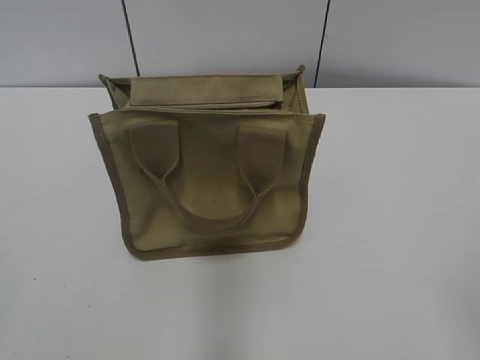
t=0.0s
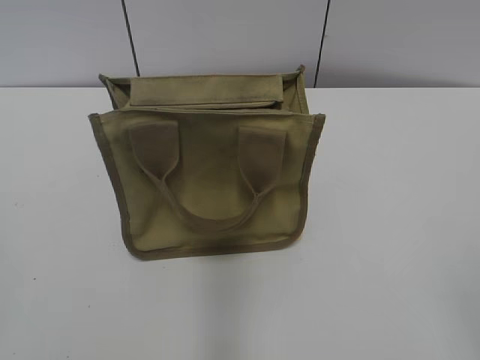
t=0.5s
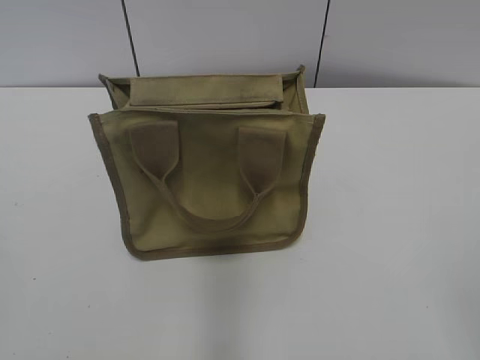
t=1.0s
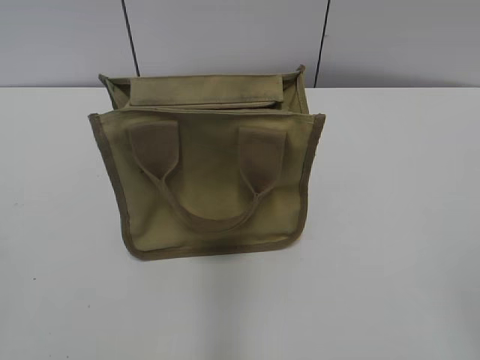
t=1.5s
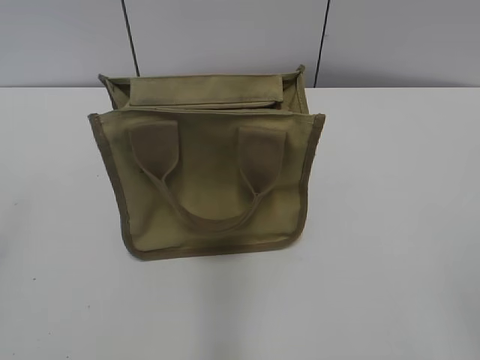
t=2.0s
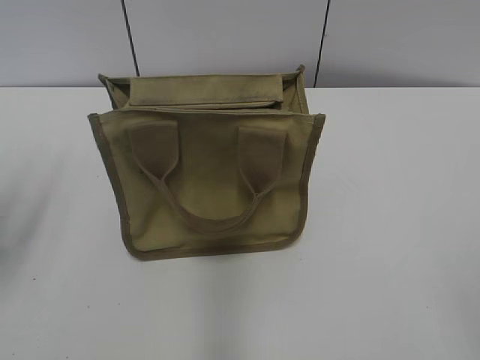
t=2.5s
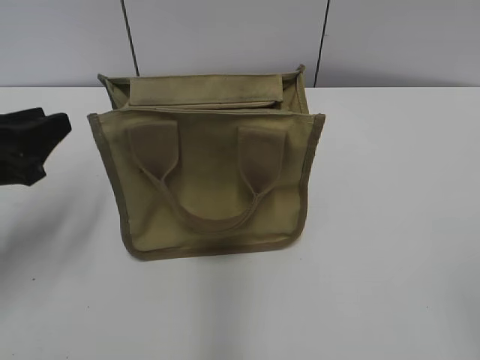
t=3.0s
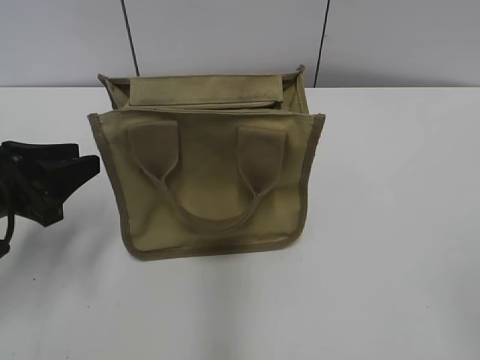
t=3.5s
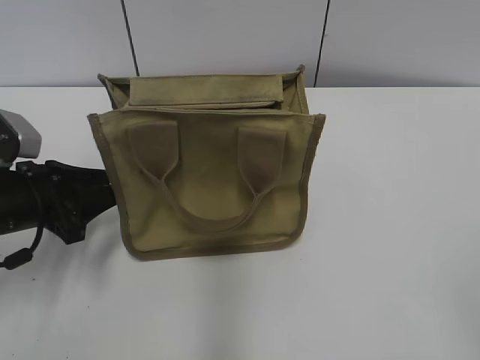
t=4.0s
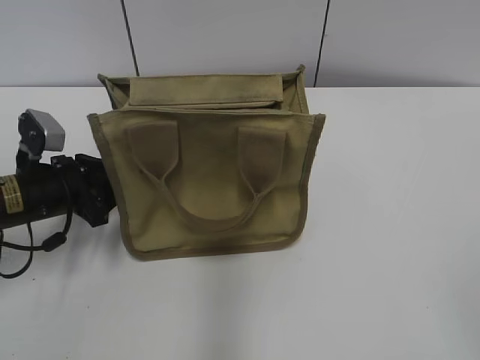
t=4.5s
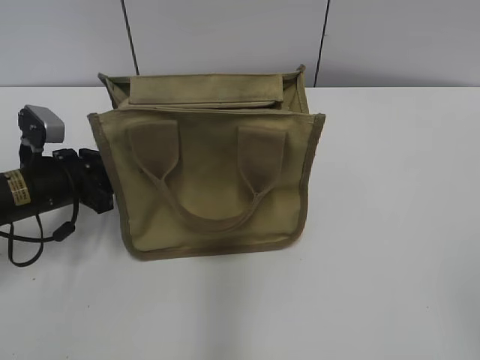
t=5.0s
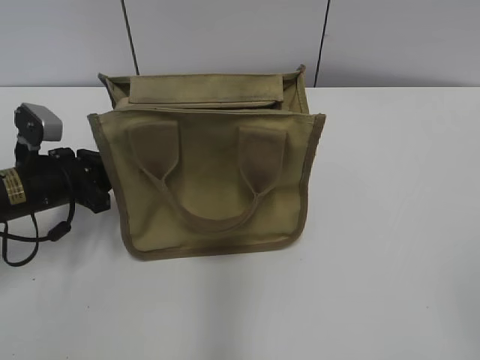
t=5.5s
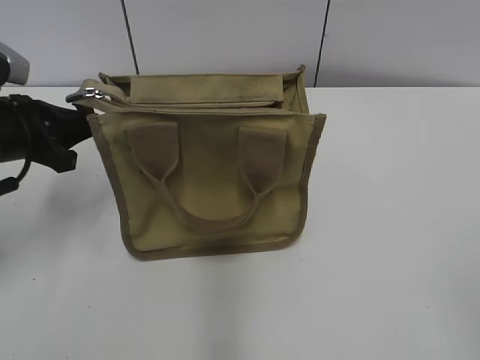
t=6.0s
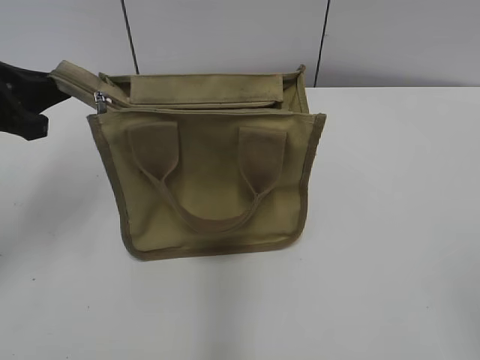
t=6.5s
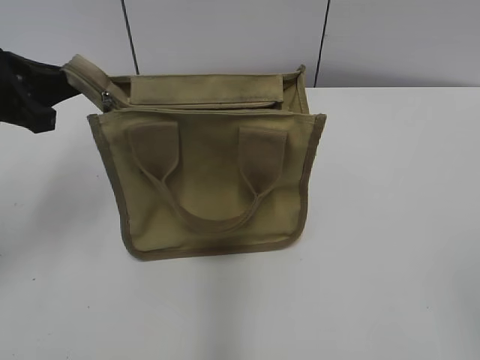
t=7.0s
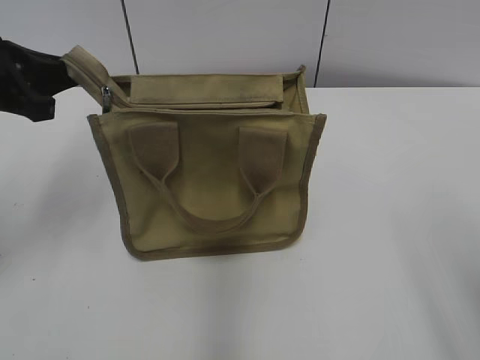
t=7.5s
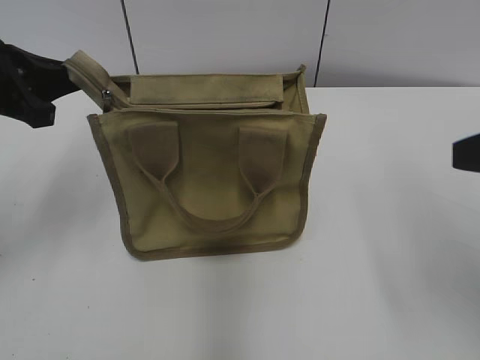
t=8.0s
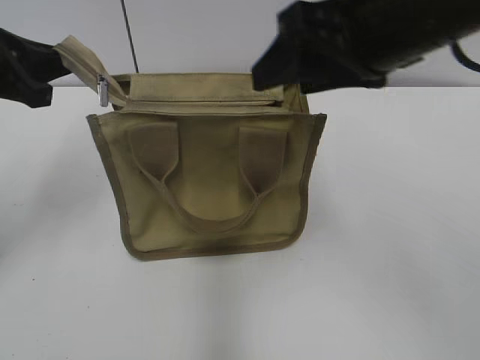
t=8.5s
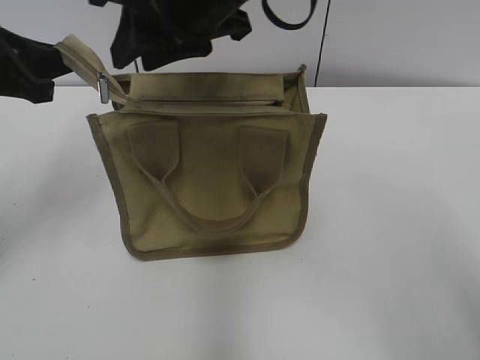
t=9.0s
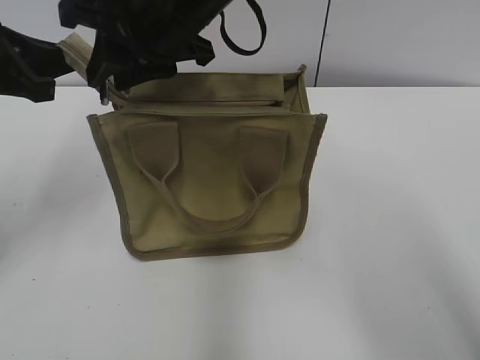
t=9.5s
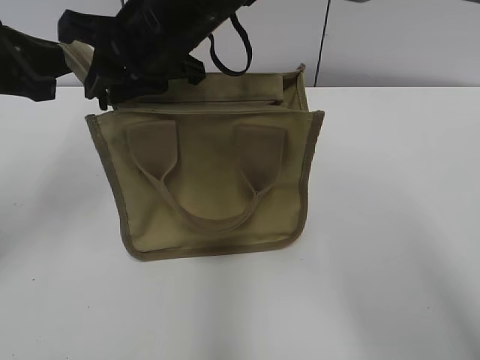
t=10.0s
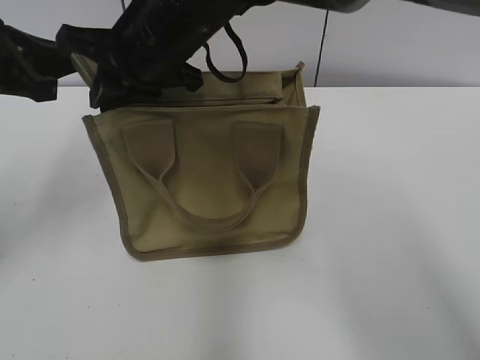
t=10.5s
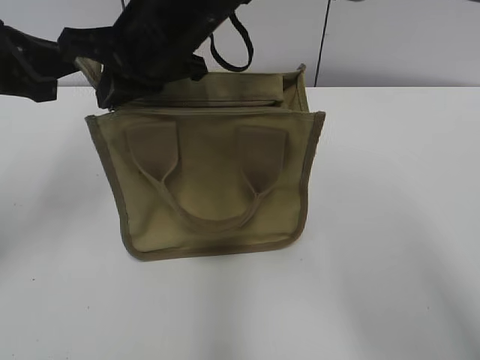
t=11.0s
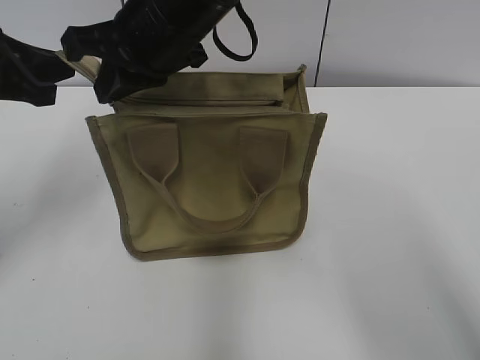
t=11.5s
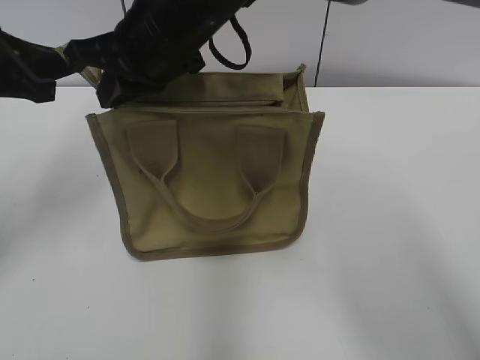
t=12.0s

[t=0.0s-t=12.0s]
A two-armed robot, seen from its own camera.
t=2.0s to t=4.0s: The left gripper goes approximately 30 cm forward and downward.
t=4.0s to t=6.0s: The left gripper travels upward by some 5 cm, and closes its fingers.
t=6.0s to t=8.0s: The left gripper is displaced upward by about 5 cm. Meanwhile the right gripper goes roughly 15 cm forward.
t=8.0s to t=10.0s: The right gripper moves to the left and forward, roughly 35 cm, and closes its fingers.
t=10.0s to t=12.0s: The right gripper closes.

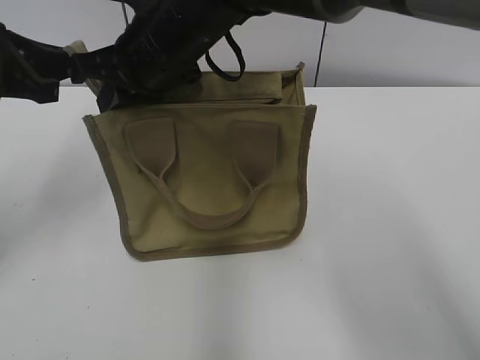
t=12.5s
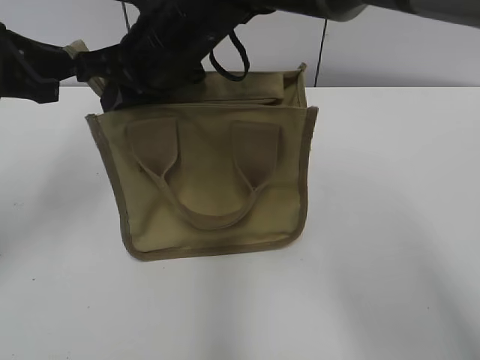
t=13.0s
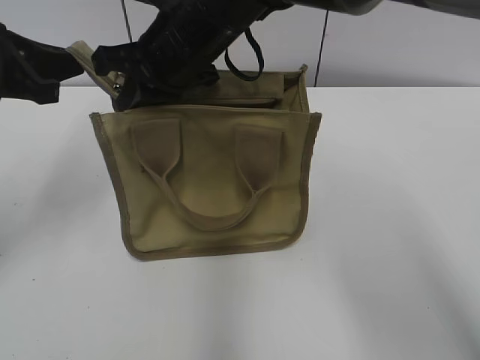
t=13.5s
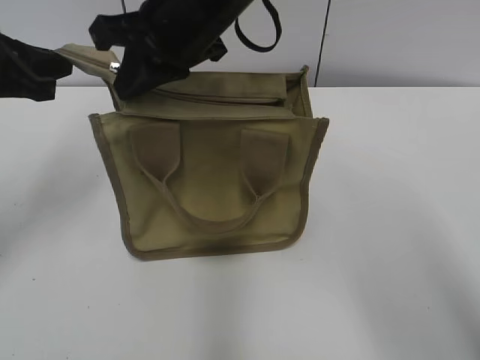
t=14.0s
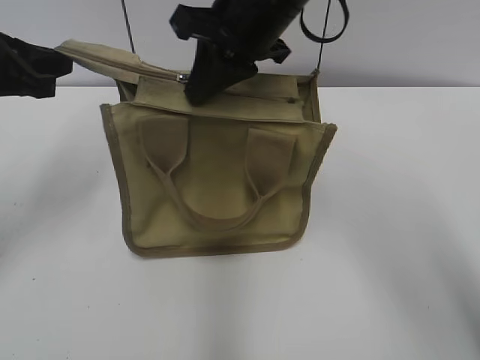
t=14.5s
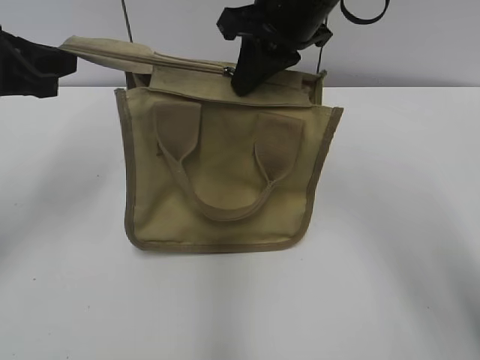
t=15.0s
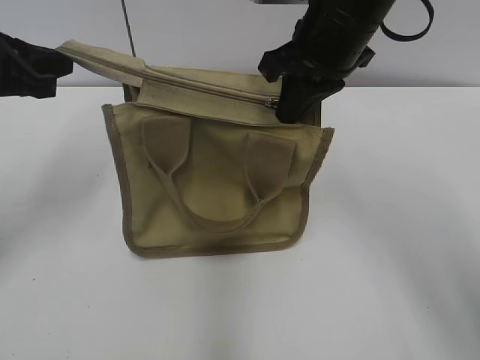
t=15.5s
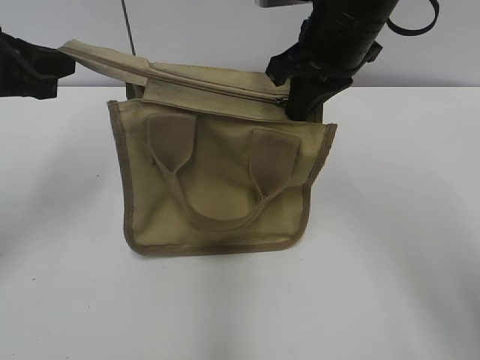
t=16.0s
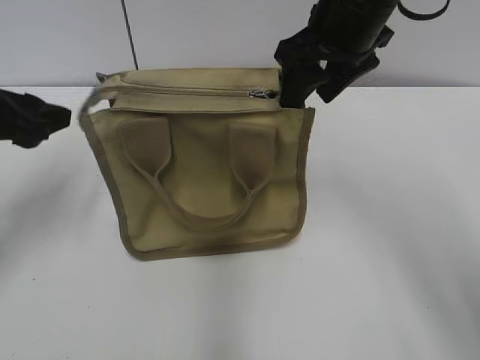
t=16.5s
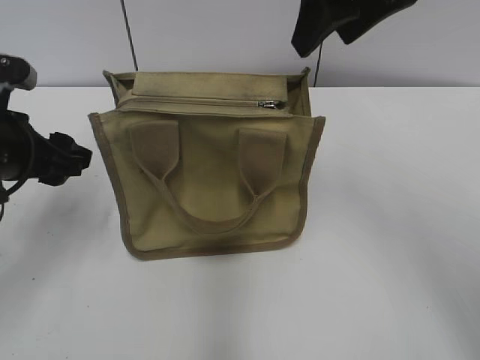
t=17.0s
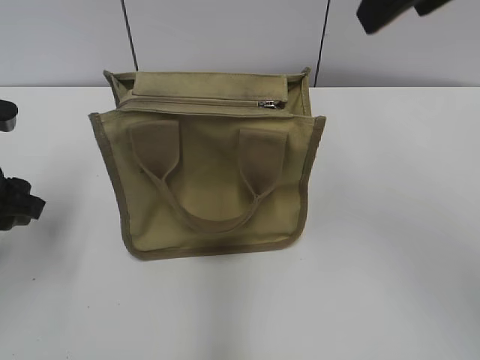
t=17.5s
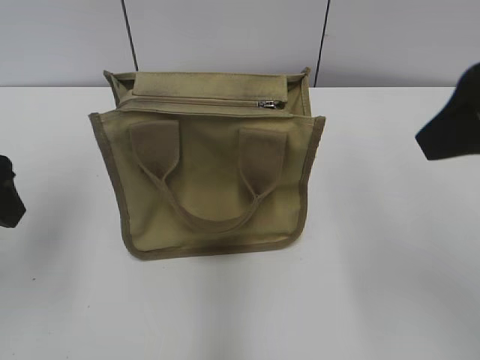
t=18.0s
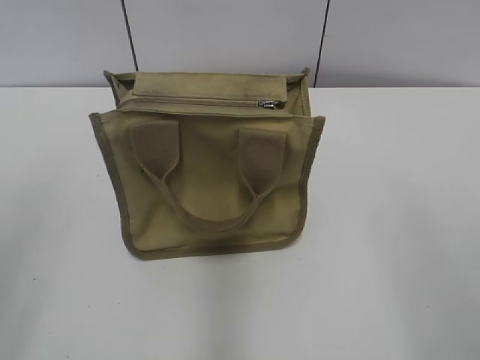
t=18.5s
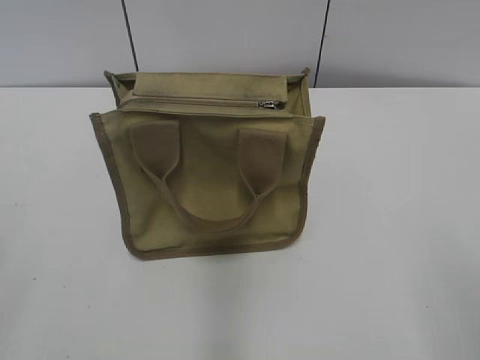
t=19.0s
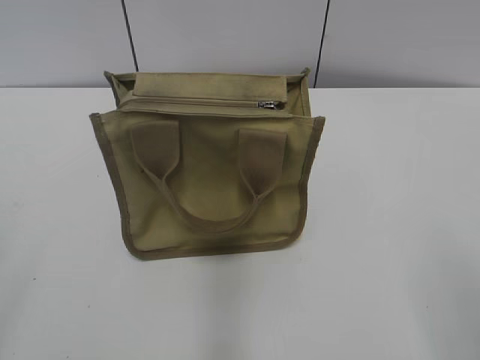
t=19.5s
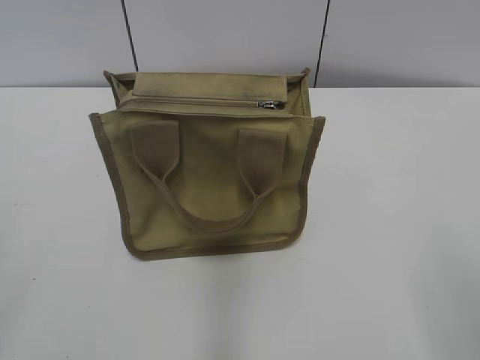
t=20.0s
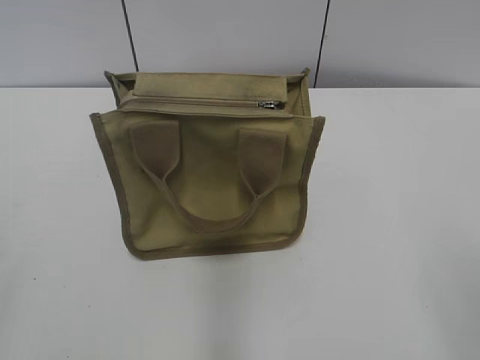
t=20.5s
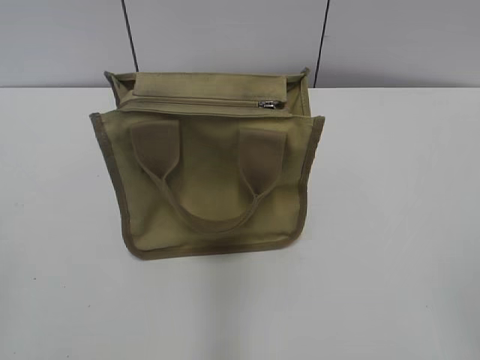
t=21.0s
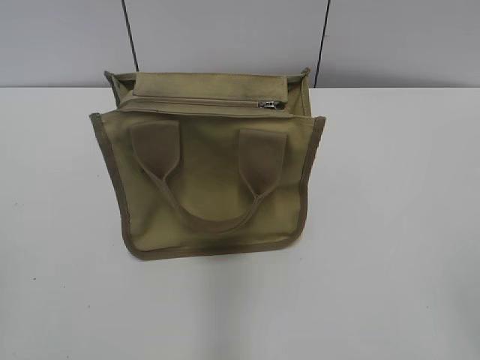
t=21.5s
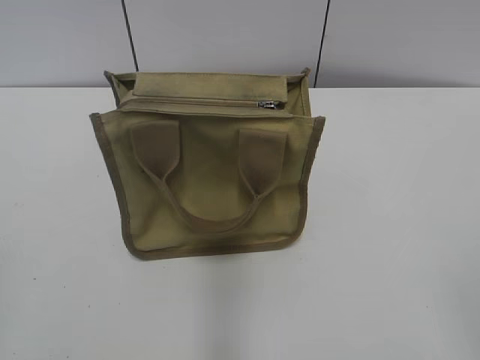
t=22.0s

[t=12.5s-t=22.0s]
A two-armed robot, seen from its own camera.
Step, t=12.5s to t=16.0s: Zip up the bag with your right hand.
t=12.5s to t=14.5s: The right gripper heads to the right, covering some 10 cm.
t=14.5s to t=16.5s: The left gripper opens. The right gripper is displaced to the right by approximately 10 cm, and opens up.
t=16.5s to t=18.0s: The right gripper goes about 20 cm backward and to the right, while the left gripper moves backward, roughly 5 cm.
t=18.0s to t=20.0s: The right gripper travels backward, downward and to the right by some 20 cm. Meanwhile the left gripper shifts approximately 20 cm backward.

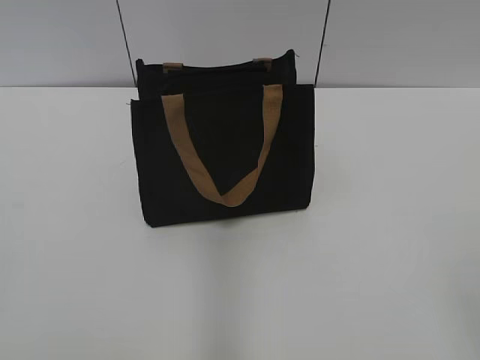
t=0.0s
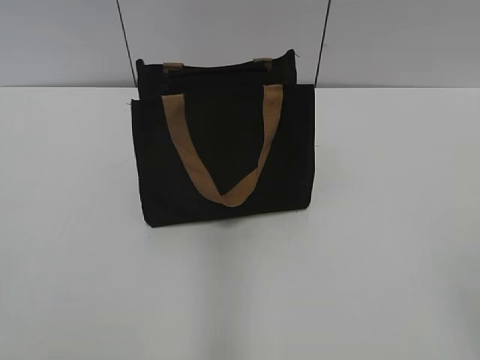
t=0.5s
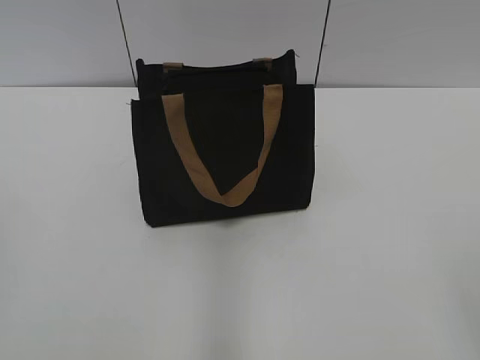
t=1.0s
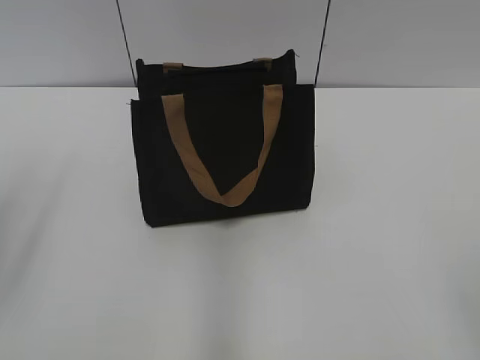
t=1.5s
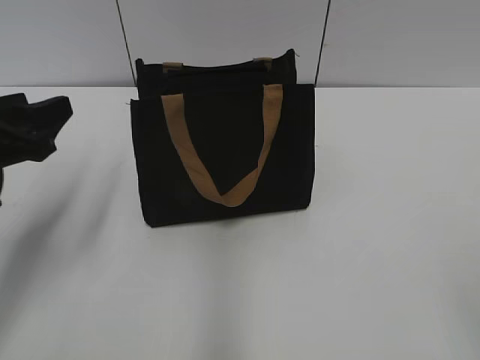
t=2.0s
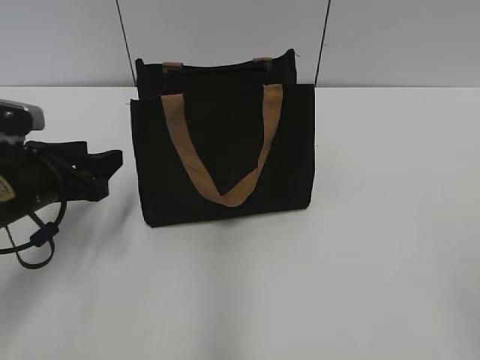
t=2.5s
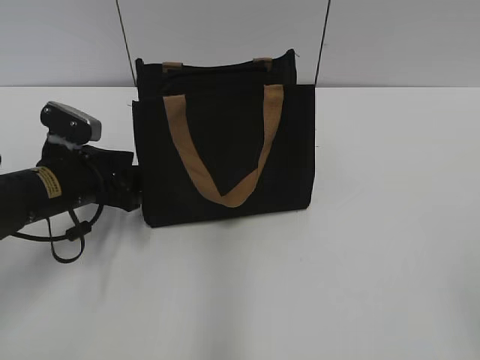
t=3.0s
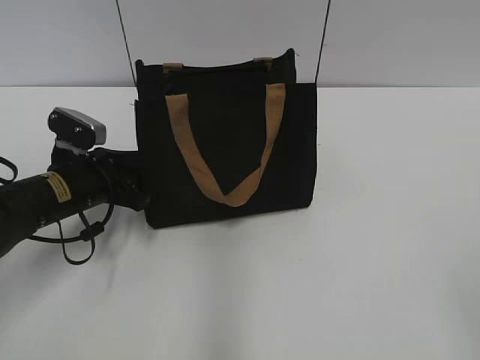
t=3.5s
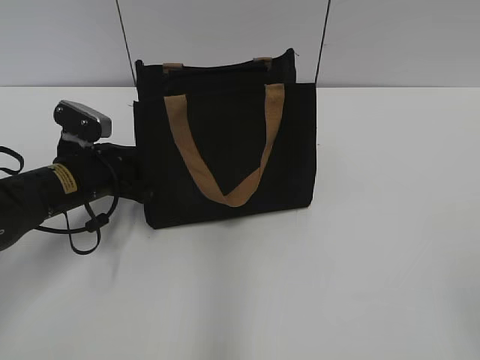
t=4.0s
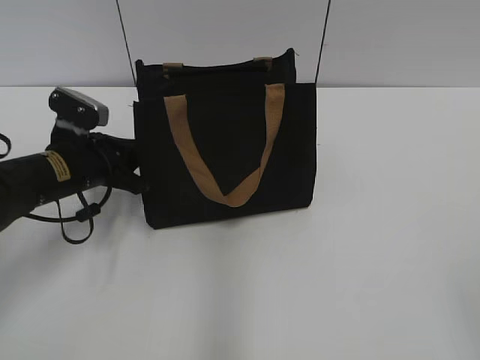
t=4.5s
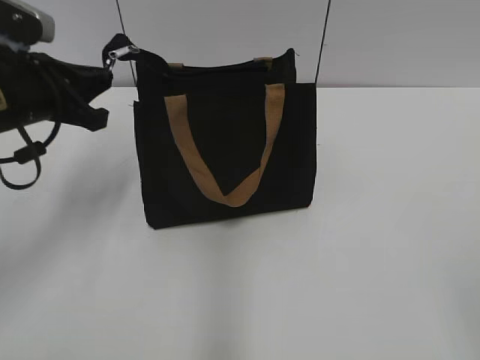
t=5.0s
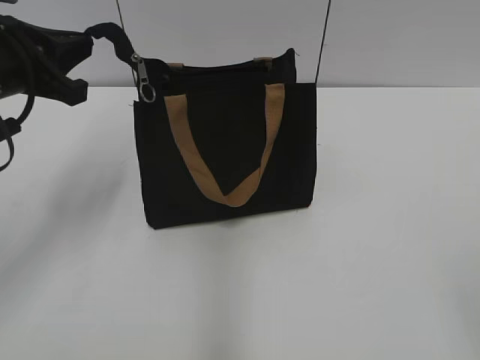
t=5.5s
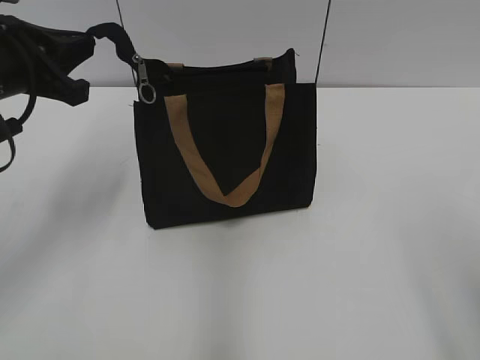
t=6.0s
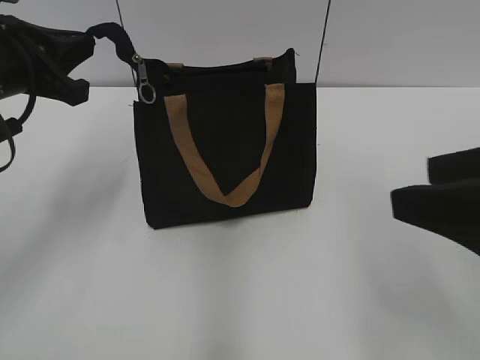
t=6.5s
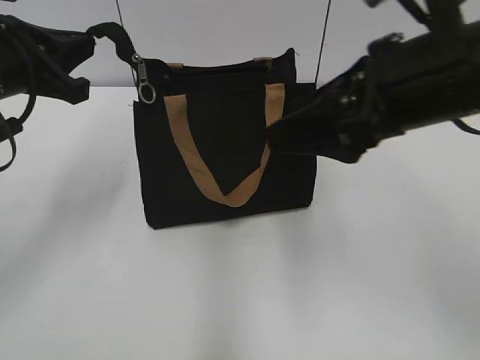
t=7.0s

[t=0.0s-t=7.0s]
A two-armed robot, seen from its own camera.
t=2.0s to t=3.5s: The left gripper heads downward, forward and to the right, covering about 15 cm.
t=3.5s to t=5.0s: The left gripper is displaced upward by roughly 15 cm, and closes up.
t=5.0s to t=7.0s: The right gripper moves forward and to the left, some 30 cm.
